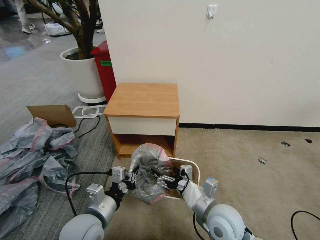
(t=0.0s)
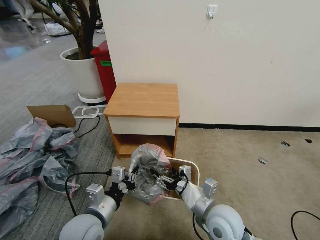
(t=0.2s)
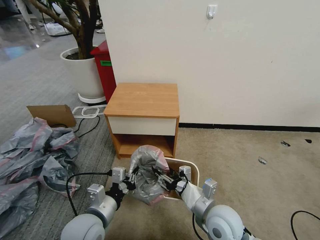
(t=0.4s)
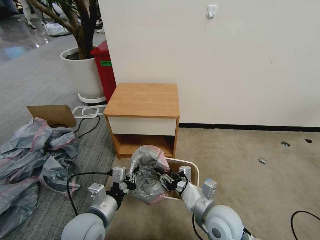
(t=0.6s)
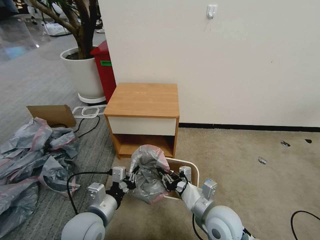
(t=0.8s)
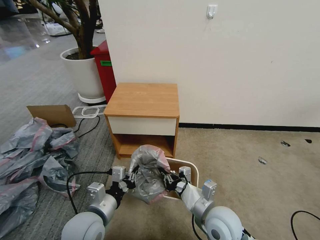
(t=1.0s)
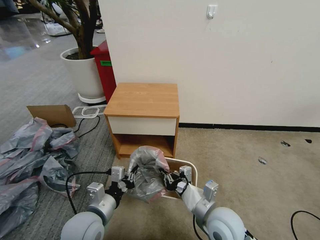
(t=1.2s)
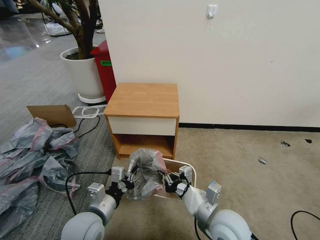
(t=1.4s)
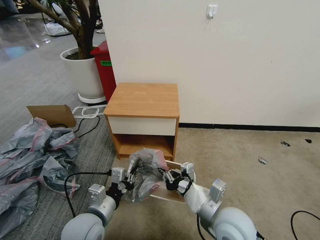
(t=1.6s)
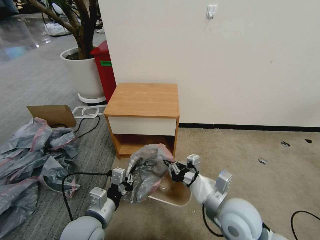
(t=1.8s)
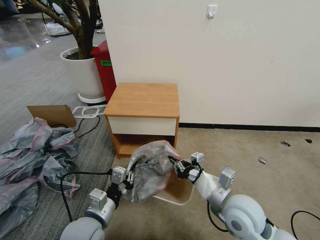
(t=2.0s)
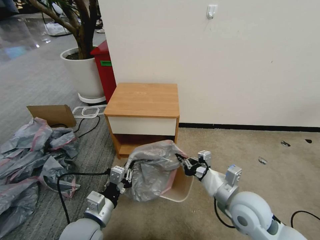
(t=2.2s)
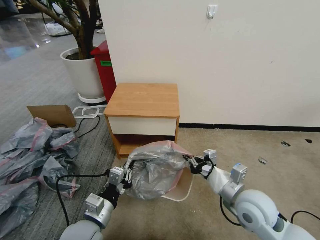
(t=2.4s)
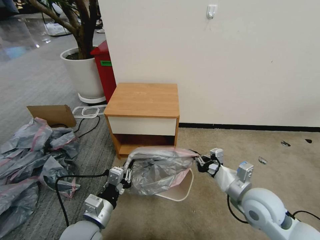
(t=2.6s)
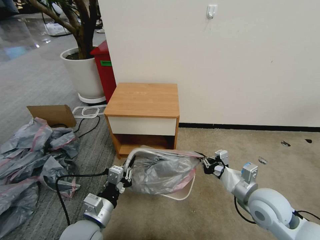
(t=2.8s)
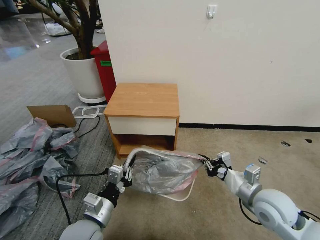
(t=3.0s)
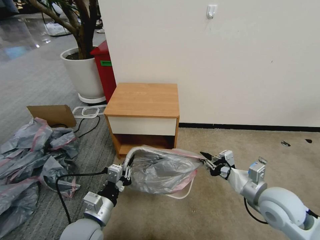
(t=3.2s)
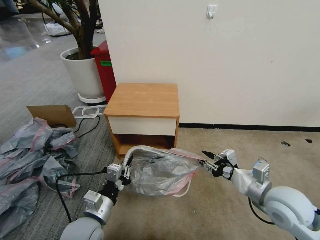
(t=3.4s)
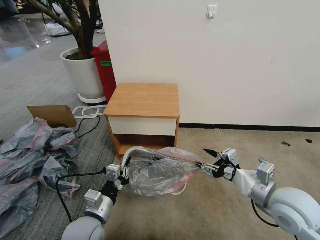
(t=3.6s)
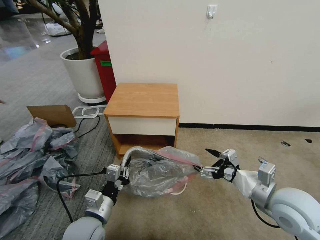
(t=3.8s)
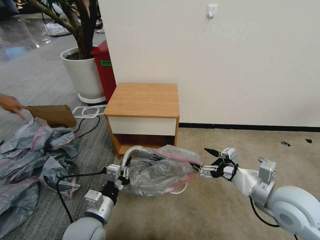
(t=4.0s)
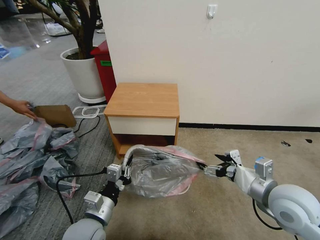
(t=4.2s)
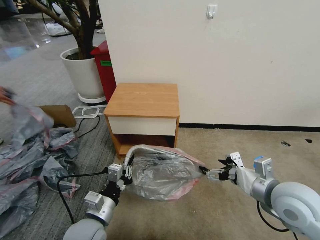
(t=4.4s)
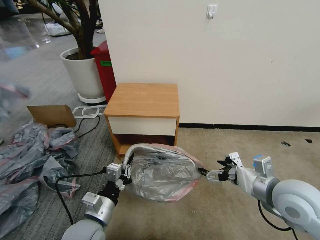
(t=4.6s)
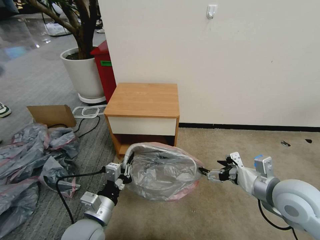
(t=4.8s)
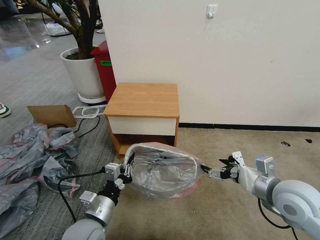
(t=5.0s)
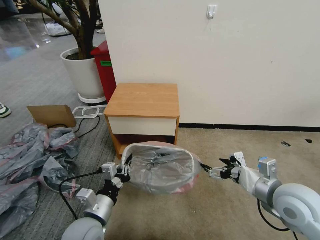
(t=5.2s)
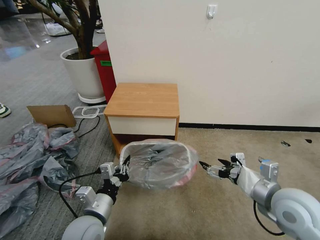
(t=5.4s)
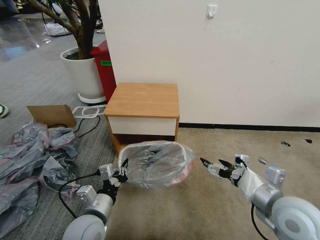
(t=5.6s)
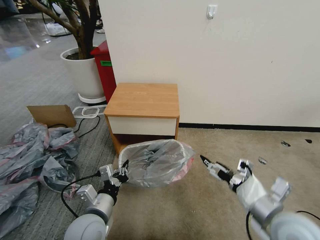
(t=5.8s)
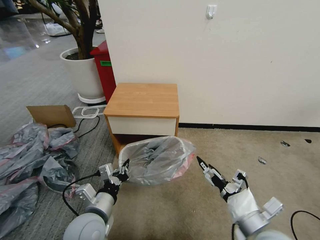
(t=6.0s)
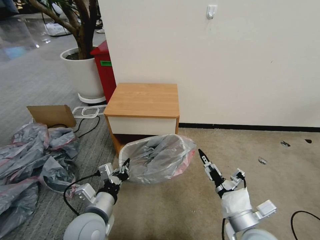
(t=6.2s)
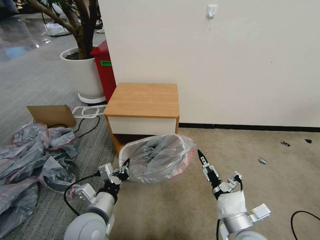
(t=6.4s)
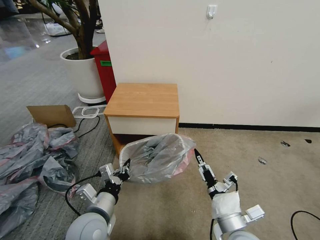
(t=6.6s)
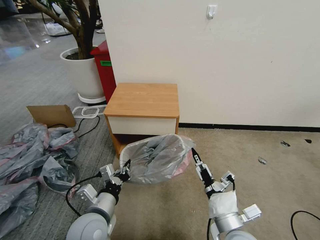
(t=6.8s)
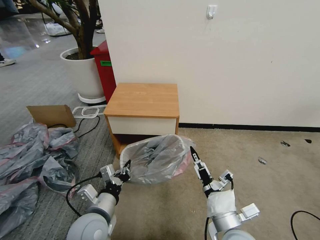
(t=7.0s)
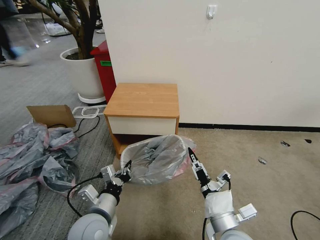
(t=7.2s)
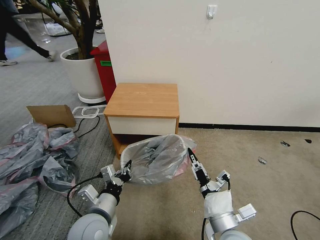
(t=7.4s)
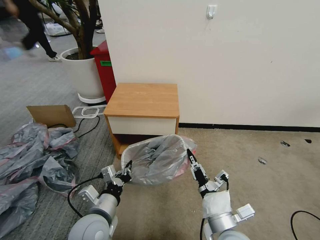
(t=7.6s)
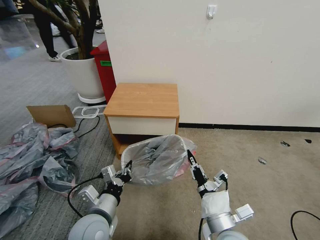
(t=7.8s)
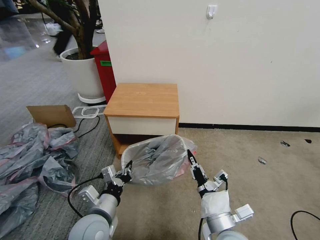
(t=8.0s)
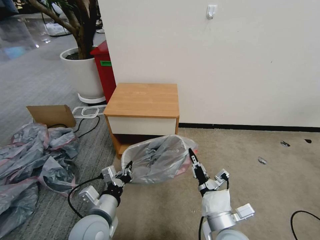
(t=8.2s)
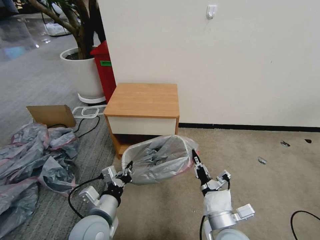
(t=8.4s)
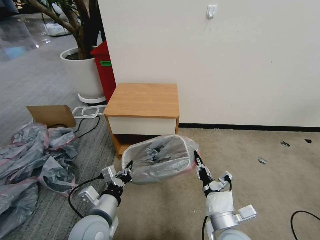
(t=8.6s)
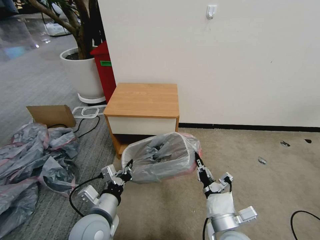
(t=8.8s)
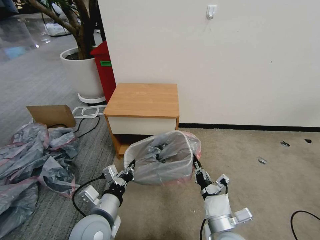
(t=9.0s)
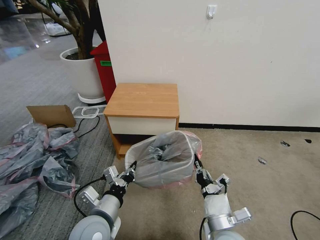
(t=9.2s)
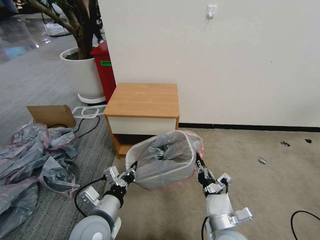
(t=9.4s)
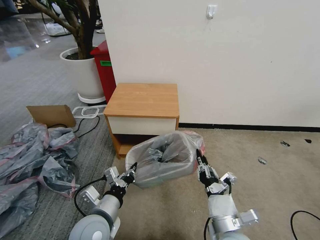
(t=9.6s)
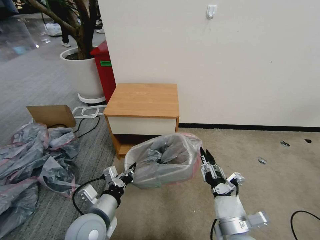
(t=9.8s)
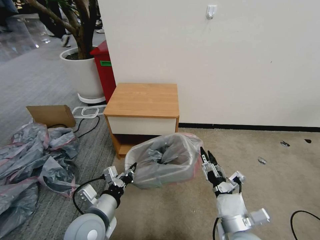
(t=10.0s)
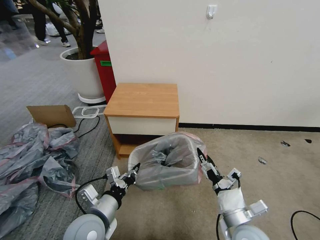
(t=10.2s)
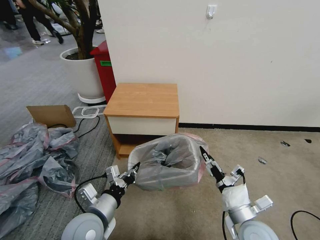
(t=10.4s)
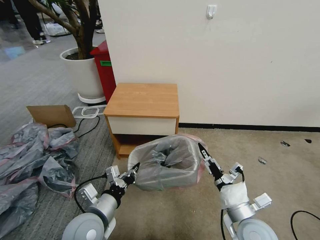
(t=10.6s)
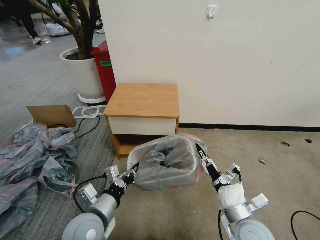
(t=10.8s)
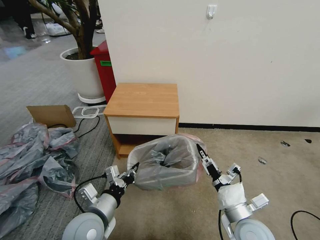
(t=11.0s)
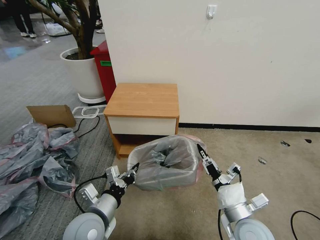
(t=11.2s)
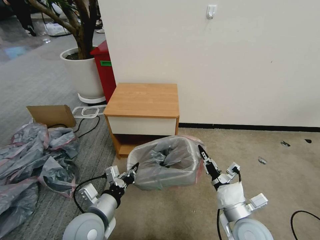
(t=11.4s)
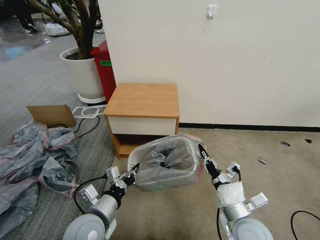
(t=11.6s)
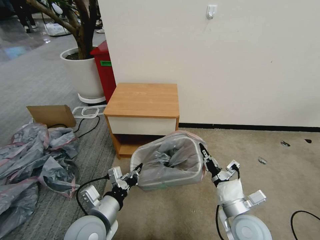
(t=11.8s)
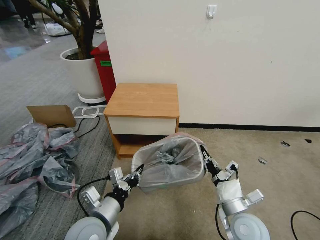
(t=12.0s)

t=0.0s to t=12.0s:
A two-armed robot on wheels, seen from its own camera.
Task of the whole recording: Pick up the garbage bag from the table and place it over the trash can.
t=0.0s to t=1.6s: The right gripper closes.
t=1.6s to t=3.0s: The right gripper is displaced to the right by approximately 15 cm.
t=3.0s to t=4.4s: The right gripper moves upward, some 5 cm, and opens up.
t=4.4s to t=6.0s: The right gripper shifts about 10 cm backward, downward and to the left.
t=6.0s to t=7.6s: The right gripper travels to the left by about 10 cm, and closes up.
t=7.6s to t=9.0s: The grippers stay close to where they were, moving slightly.
t=9.0s to t=10.4s: The right gripper is displaced to the right by roughly 5 cm, and opens.
t=10.4s to t=12.0s: The right gripper closes up.

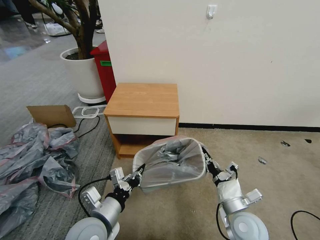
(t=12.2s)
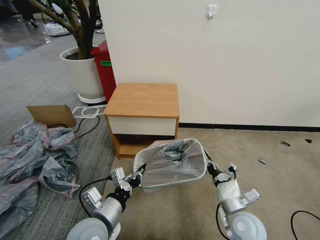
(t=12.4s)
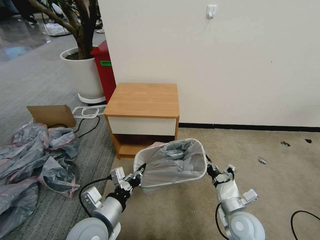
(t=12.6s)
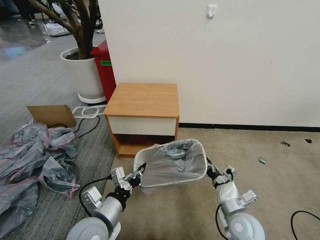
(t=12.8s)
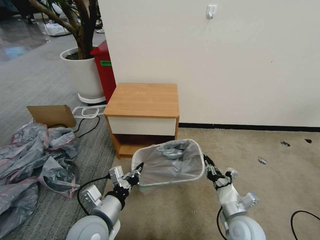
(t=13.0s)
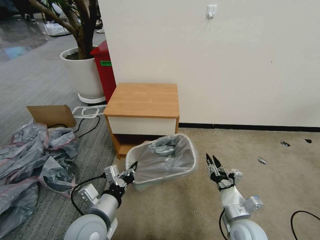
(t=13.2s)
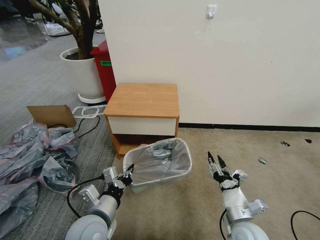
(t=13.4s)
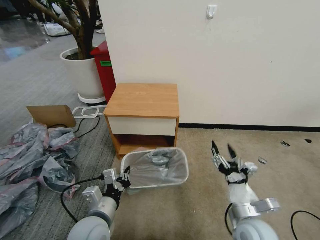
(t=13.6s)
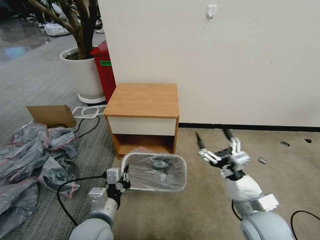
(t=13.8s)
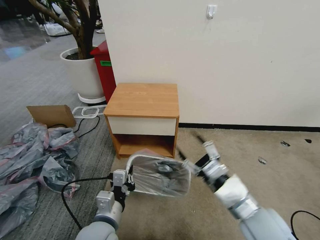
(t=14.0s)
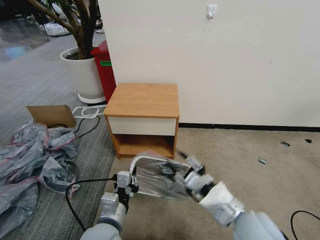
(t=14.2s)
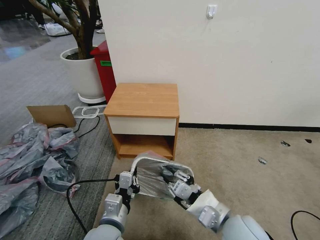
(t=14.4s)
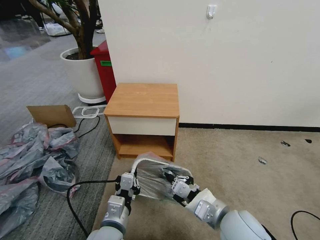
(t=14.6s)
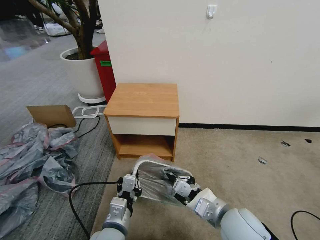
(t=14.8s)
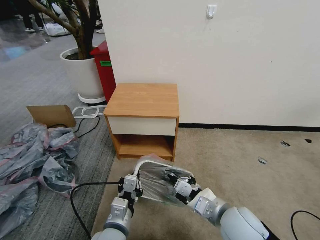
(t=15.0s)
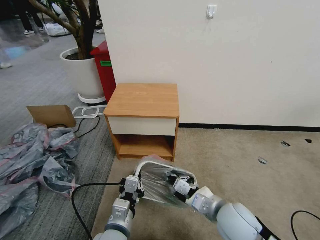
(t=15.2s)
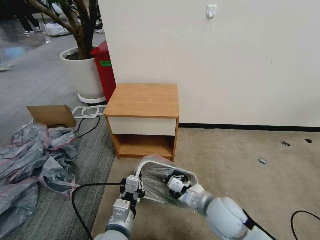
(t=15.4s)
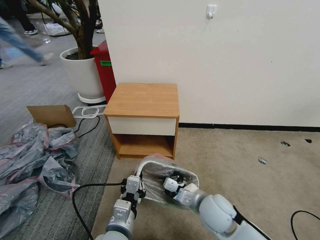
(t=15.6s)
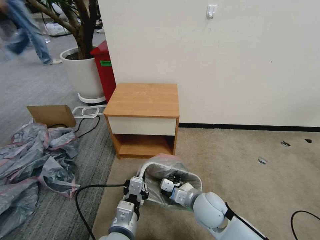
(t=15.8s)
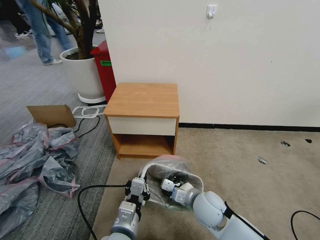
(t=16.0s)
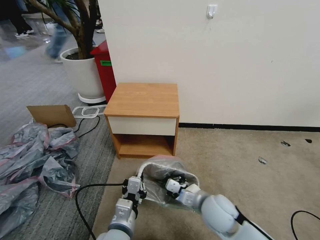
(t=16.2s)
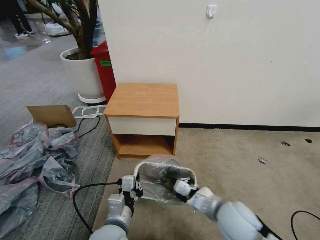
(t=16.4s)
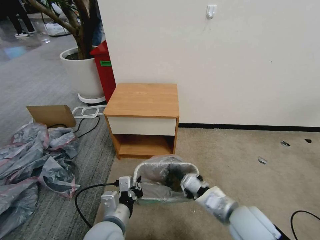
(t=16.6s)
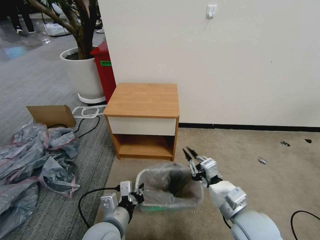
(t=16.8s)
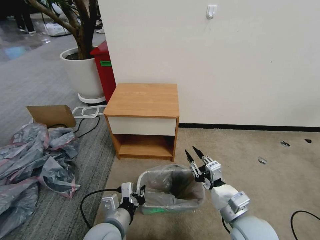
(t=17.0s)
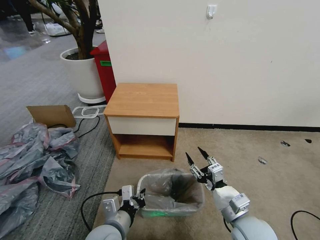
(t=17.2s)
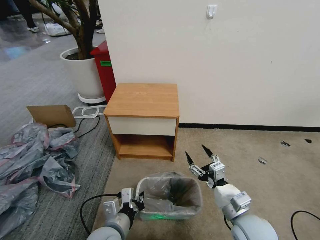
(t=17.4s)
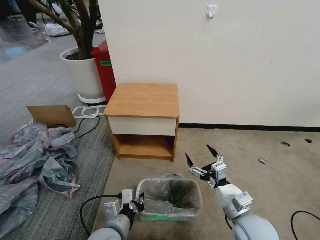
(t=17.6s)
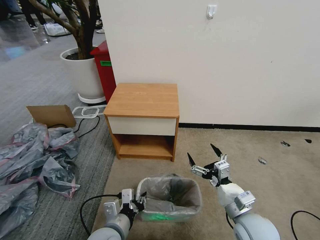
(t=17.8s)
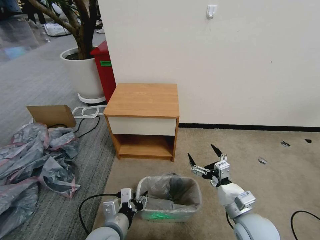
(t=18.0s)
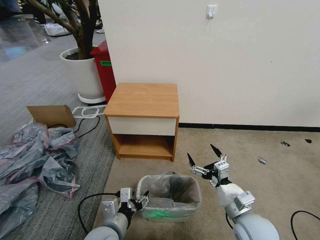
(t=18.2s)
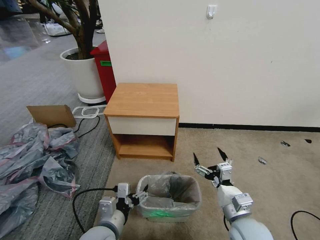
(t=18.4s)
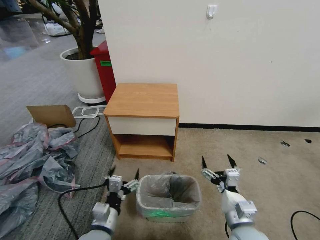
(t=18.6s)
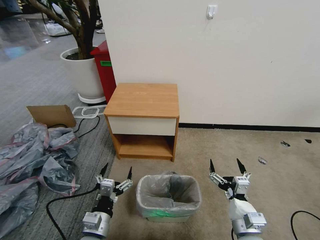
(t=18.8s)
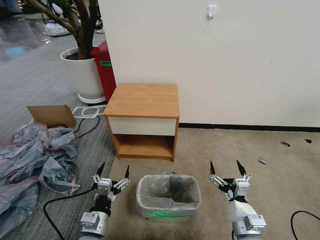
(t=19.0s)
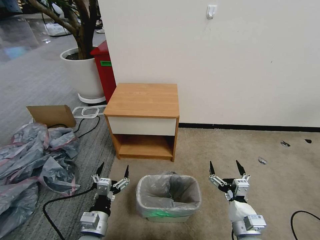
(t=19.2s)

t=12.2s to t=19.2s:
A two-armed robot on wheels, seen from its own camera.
Task of the whole recording: Pick up the garbage bag from the table and place it over the trash can.
t=12.2s to t=13.6s: The right gripper opens.
t=13.6s to t=15.0s: The left gripper travels to the right by some 5 cm, while the right gripper moves to the left, approximately 5 cm, and closes up.
t=16.4s to t=17.8s: The right gripper heads to the right, covering about 5 cm, and opens up.
t=17.8s to t=19.2s: The left gripper moves to the left, about 5 cm, and opens. Meanwhile the right gripper is displaced downward by about 5 cm.
